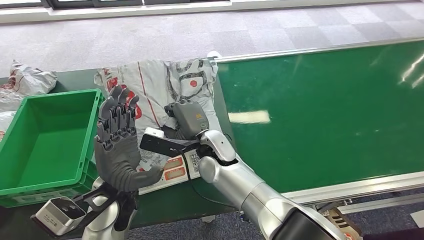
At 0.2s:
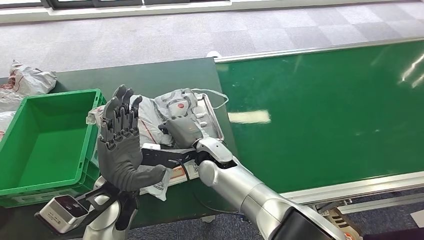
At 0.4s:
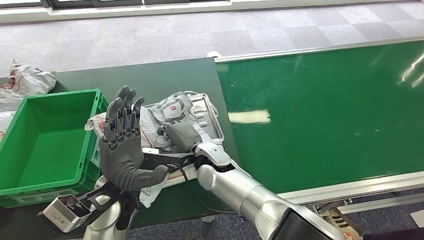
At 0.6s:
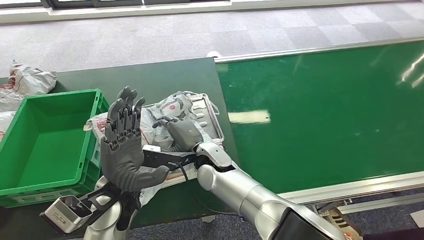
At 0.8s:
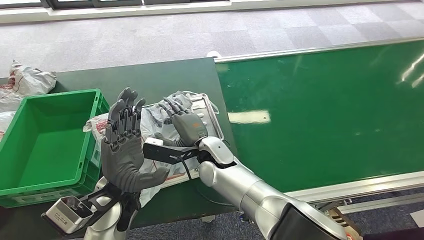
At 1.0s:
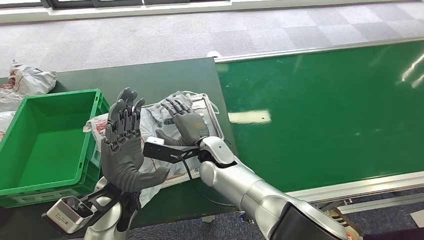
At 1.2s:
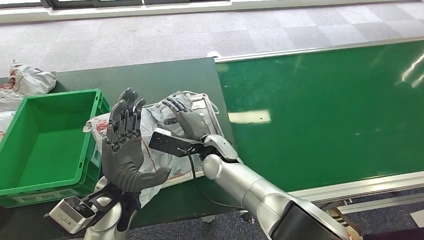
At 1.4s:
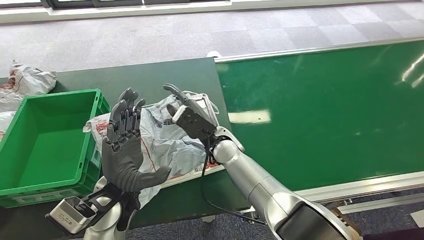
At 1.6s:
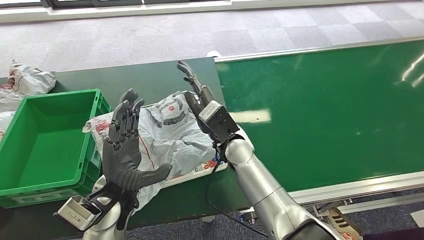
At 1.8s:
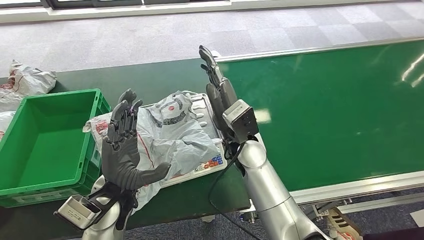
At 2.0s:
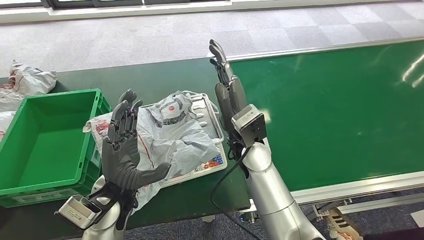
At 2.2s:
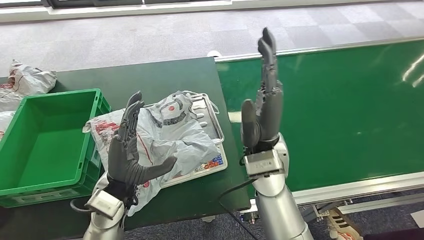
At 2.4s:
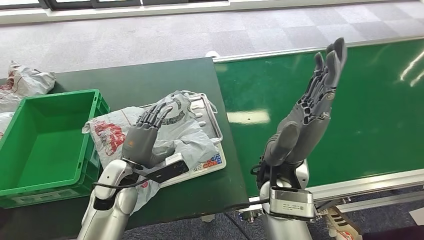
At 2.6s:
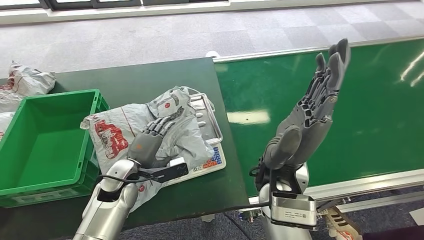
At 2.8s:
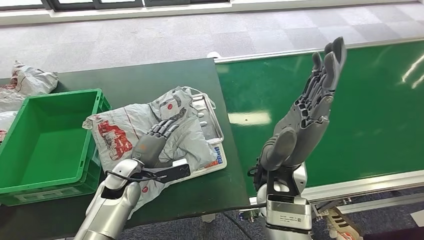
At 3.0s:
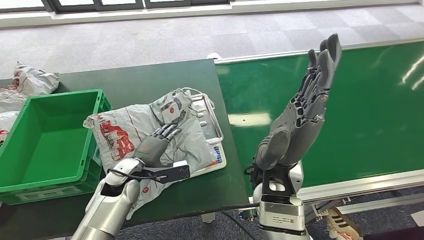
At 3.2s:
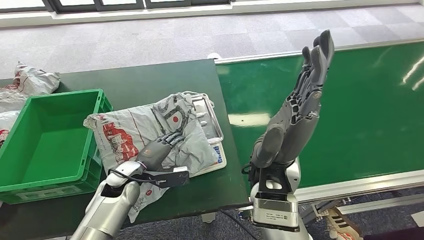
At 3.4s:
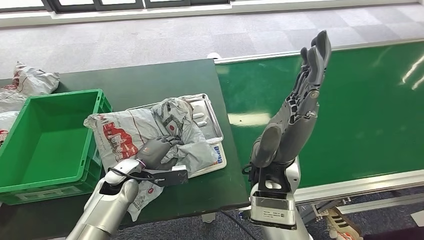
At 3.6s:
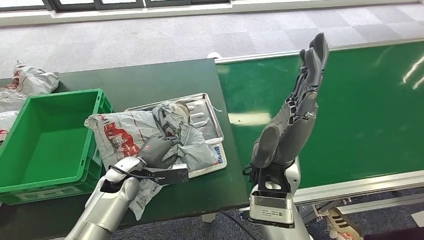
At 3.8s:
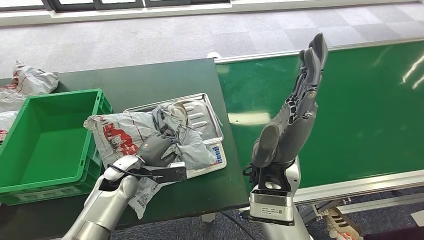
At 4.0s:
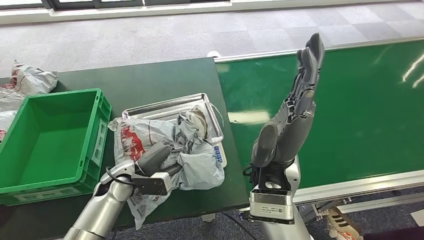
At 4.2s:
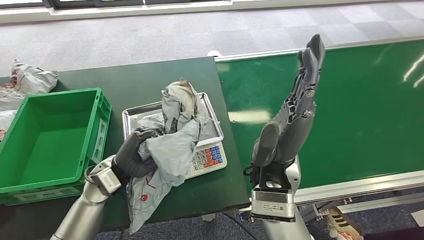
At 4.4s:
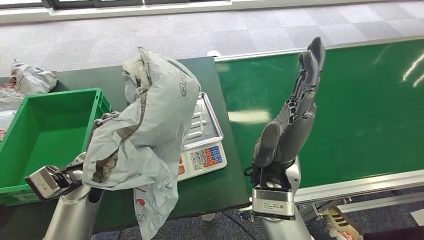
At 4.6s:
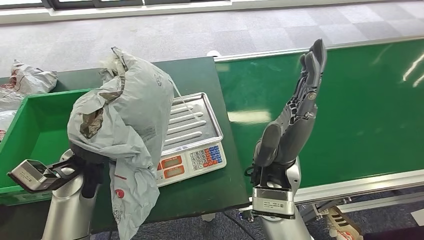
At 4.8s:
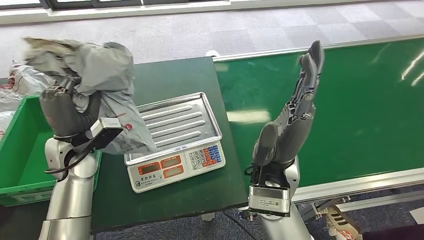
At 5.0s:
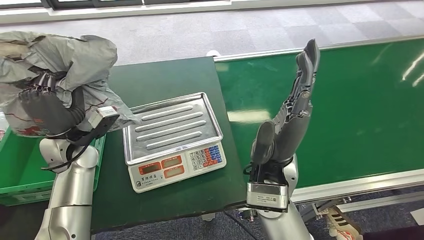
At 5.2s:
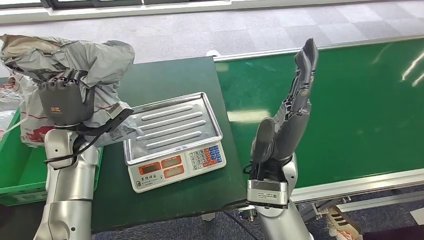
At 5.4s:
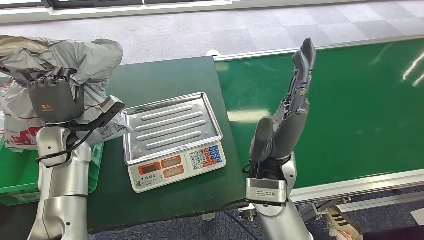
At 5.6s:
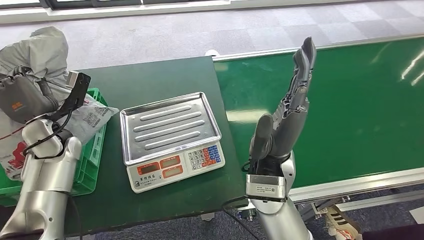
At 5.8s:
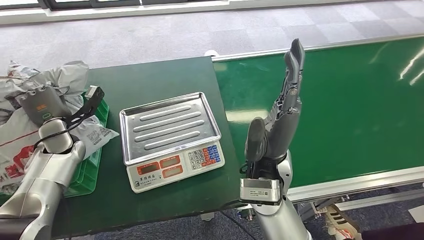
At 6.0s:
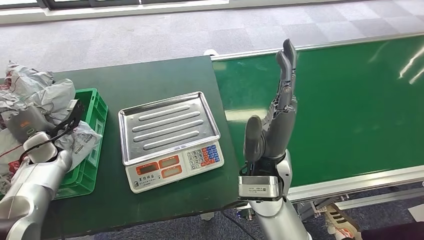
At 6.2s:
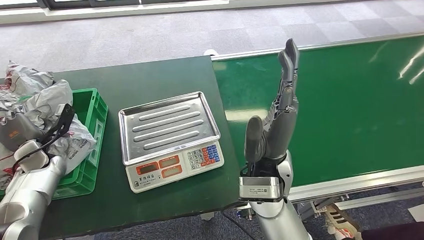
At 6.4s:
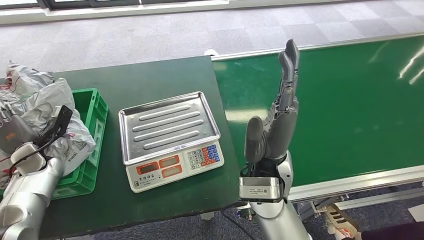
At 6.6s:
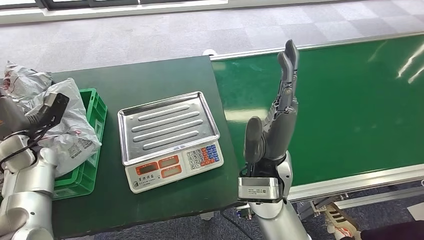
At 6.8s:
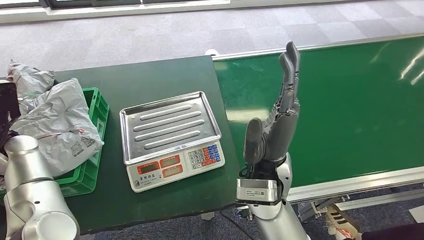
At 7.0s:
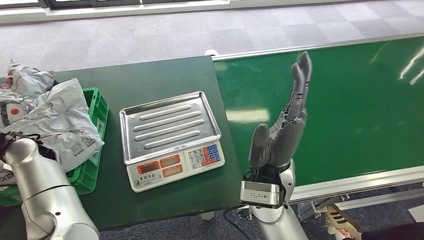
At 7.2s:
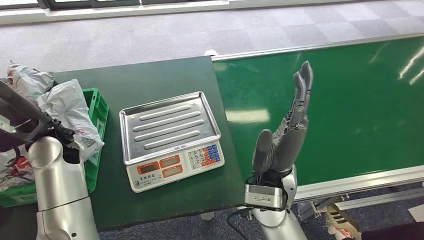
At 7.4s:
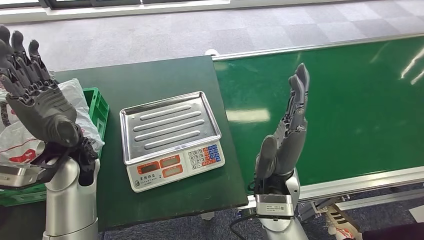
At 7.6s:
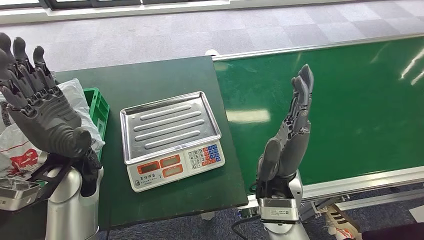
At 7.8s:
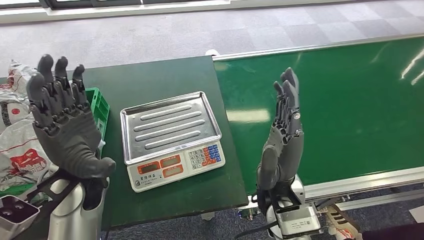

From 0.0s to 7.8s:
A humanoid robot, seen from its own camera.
Step, from 0.0s to 2.4s: Place the package onto the inbound machine.
Step, from 2.8s to 5.0s: Pick up the package from the inbound machine.
Step, from 5.2s to 7.8s: Place the package into the parcel locker.
